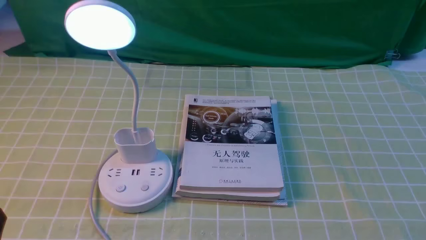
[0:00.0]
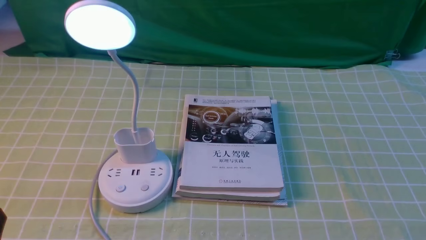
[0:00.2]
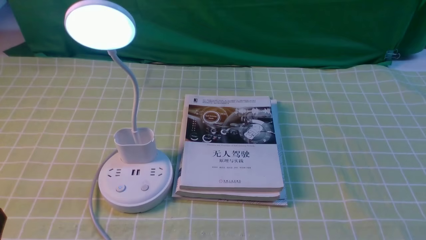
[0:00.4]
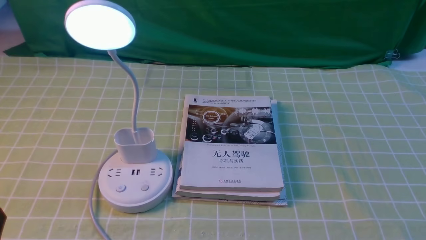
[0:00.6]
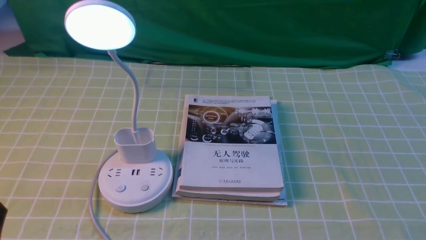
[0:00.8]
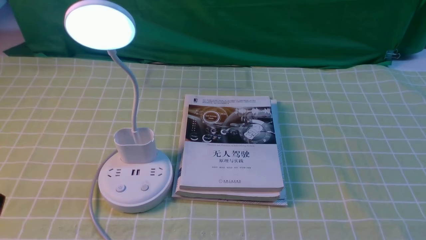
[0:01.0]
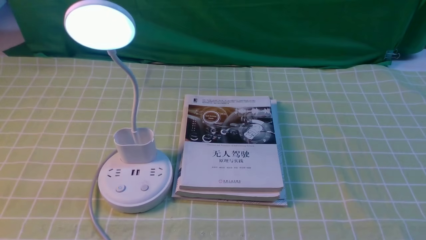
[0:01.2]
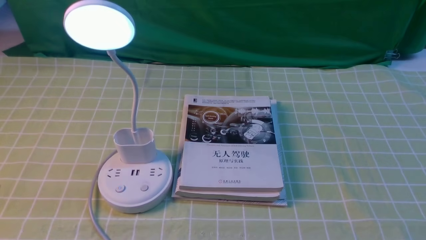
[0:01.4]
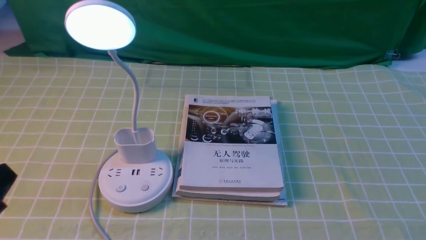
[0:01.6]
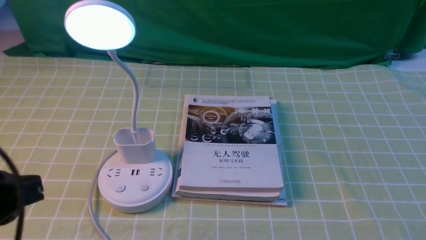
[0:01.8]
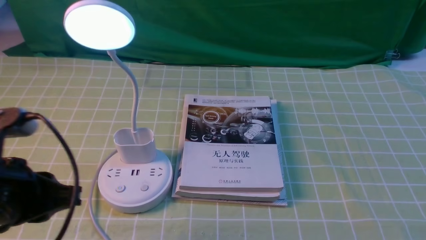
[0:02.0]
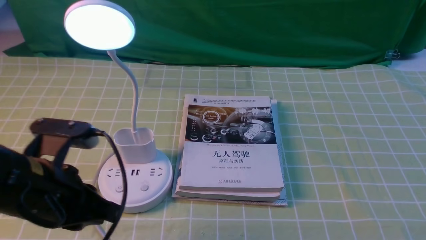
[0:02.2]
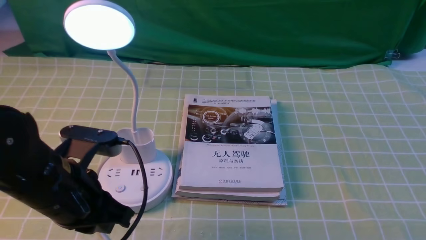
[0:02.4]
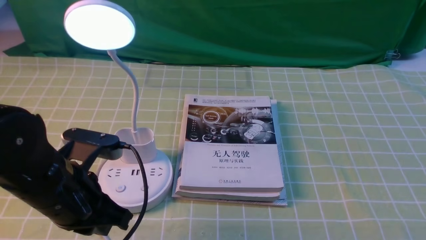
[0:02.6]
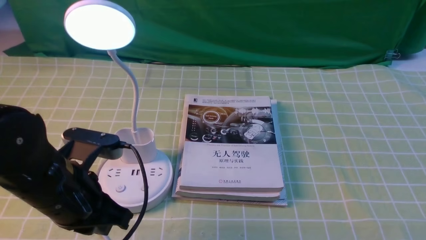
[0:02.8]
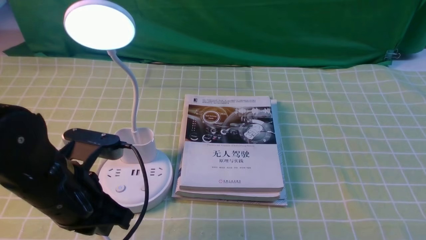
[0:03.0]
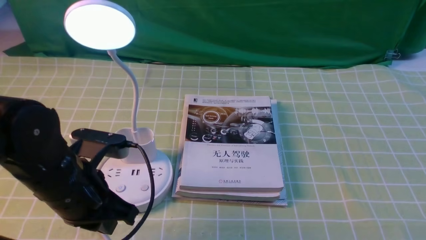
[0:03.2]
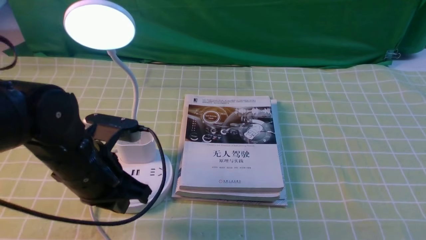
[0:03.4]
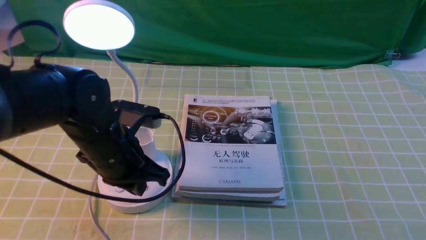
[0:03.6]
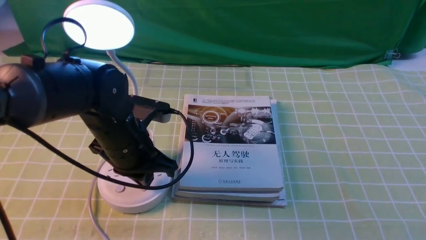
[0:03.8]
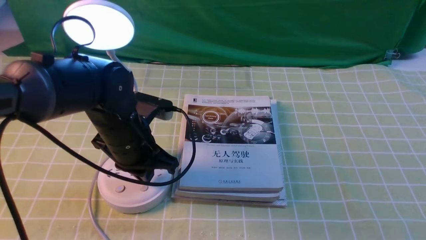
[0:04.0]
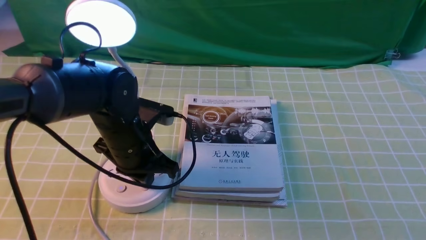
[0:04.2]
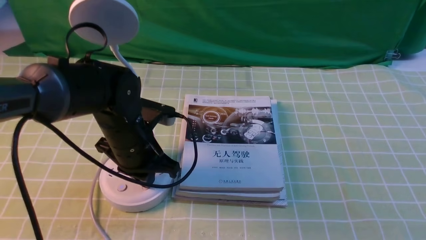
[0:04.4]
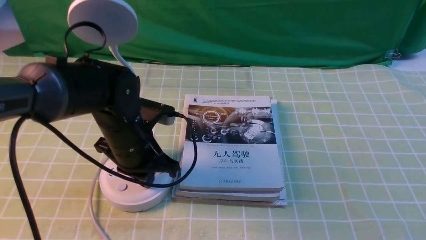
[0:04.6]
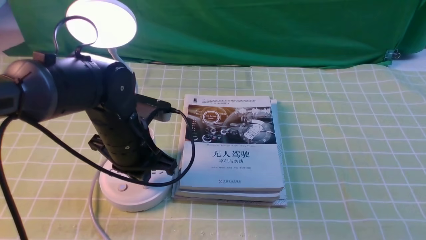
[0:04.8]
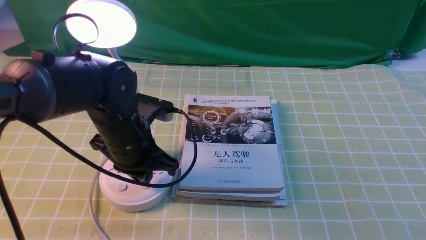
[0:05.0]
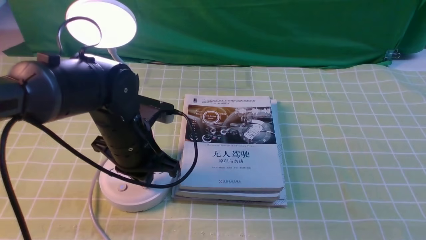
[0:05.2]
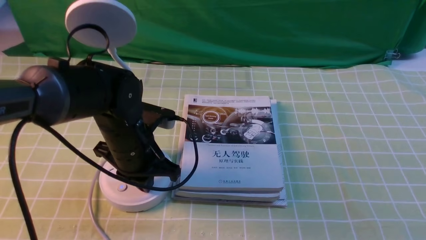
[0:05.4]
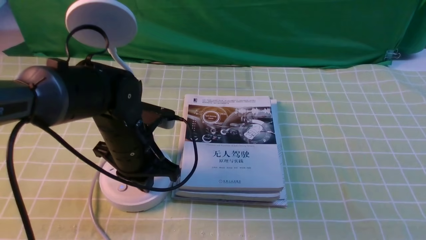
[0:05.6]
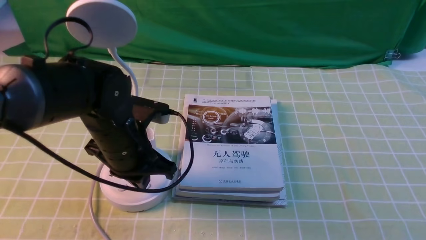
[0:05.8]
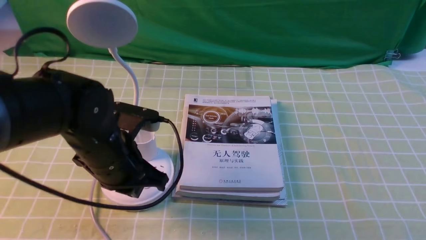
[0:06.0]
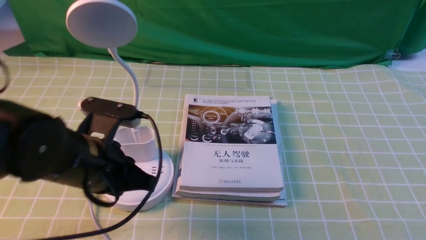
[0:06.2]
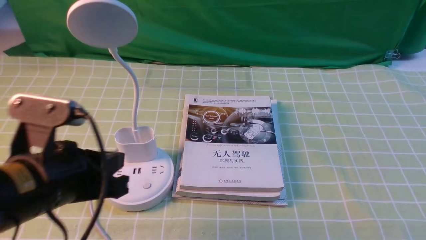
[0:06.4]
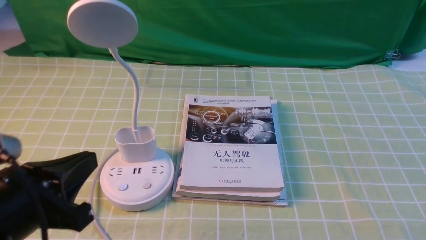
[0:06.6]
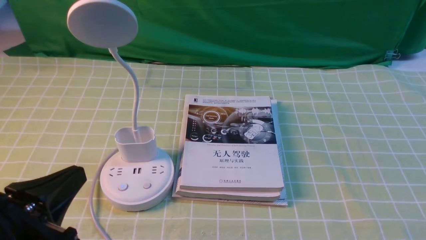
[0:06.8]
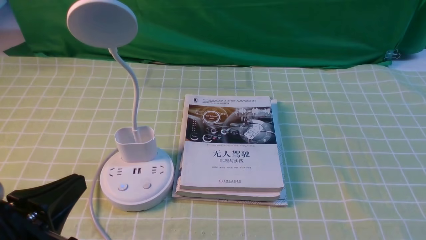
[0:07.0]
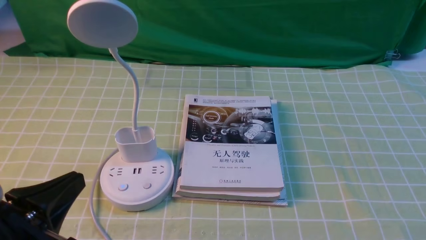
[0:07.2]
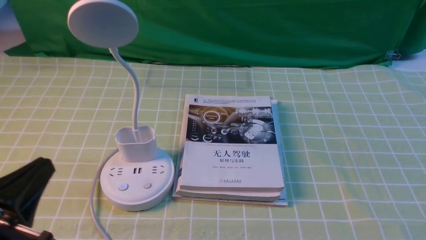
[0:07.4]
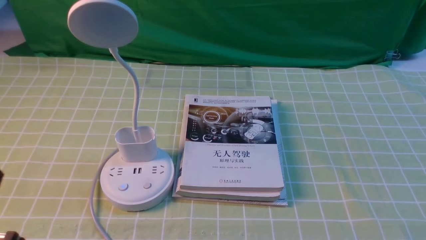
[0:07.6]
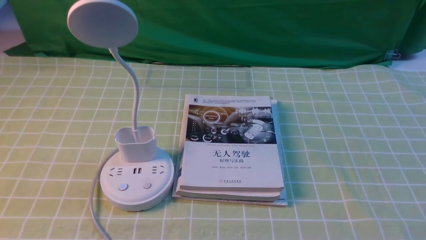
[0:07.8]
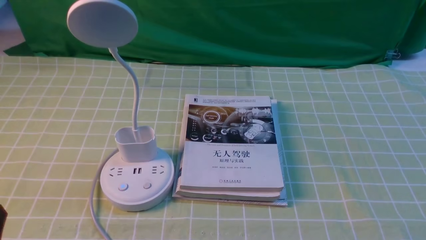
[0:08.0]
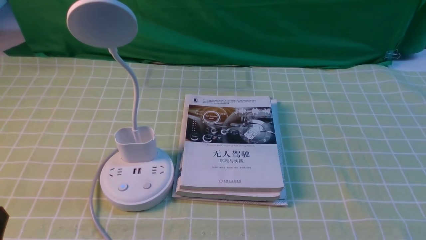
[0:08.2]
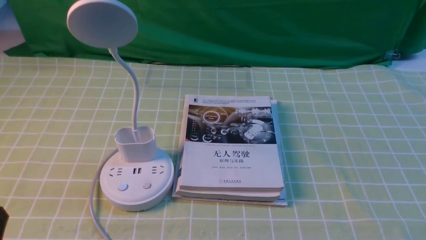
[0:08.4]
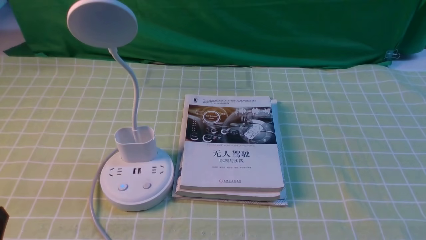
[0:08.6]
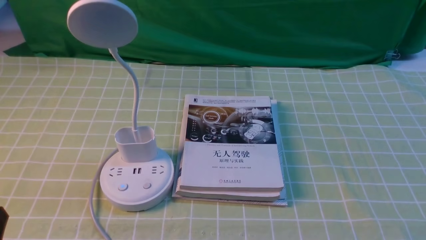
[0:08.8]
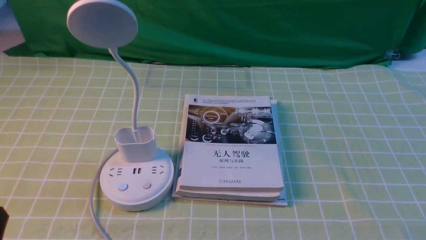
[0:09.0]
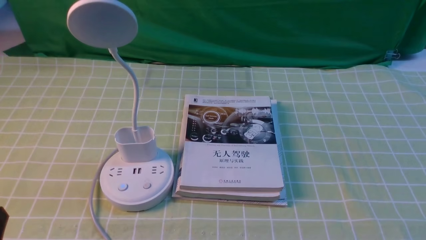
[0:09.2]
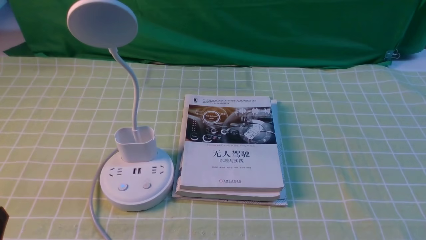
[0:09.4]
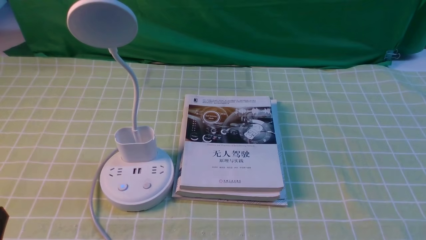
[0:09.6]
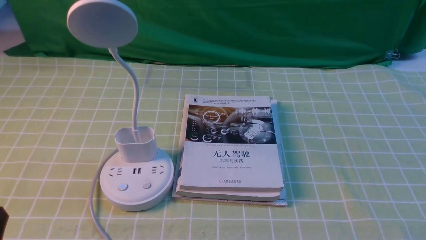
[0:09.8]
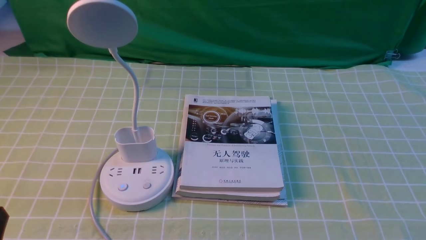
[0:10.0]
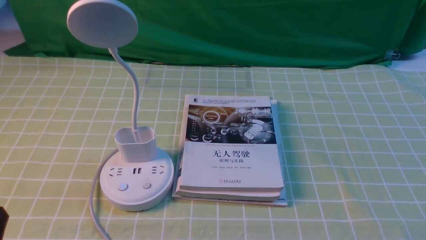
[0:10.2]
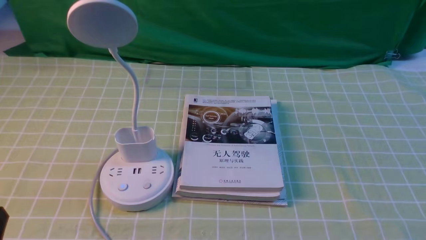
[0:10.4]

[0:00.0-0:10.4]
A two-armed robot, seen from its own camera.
Task of the whole recording: turn off the desk lamp on the green coffee tablecloth by hand.
Step, 0.0 to 6.0 s: use the left arm to press the button switch on the lamp holder.
1.4 to 3.0 s: The left gripper travels forward and to the right by about 15 cm.
3.0 to 4.4 s: The left gripper shifts about 10 cm forward.
4.4 to 6.0 s: The grippers make only small movements.
6.0 to 7.4 s: The left gripper travels backward and to the left by approximately 20 cm.
7.4 to 9.0 s: The left gripper ends up about 5 cm from where it was.

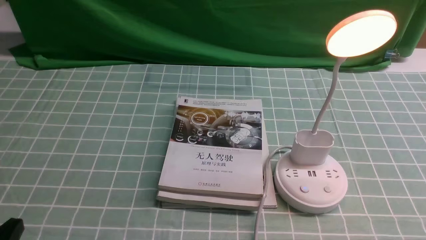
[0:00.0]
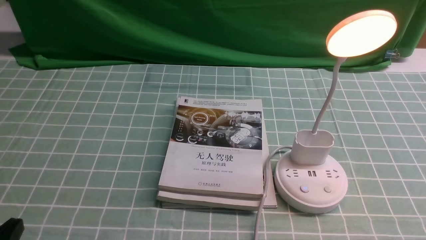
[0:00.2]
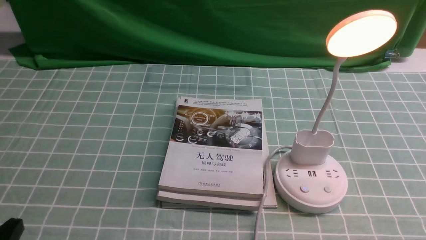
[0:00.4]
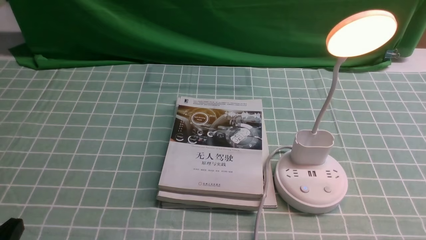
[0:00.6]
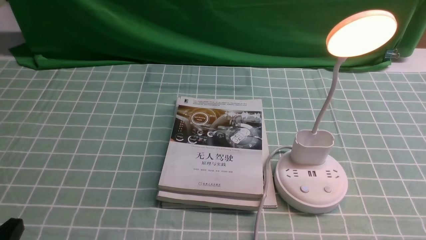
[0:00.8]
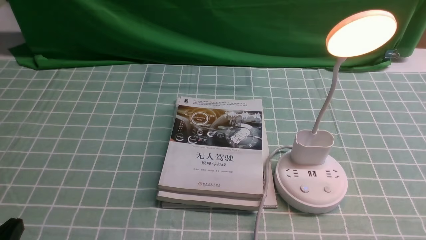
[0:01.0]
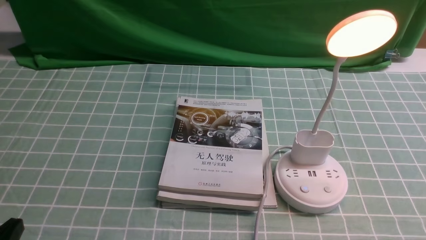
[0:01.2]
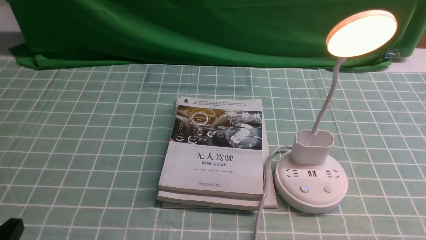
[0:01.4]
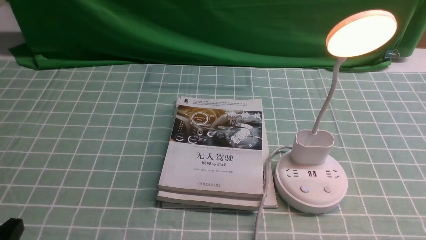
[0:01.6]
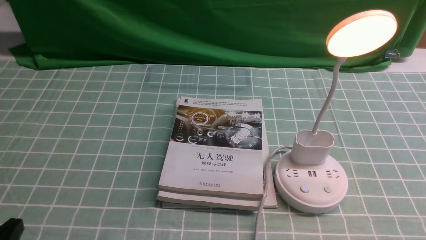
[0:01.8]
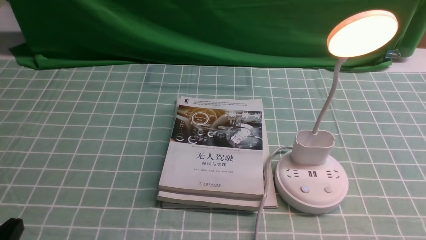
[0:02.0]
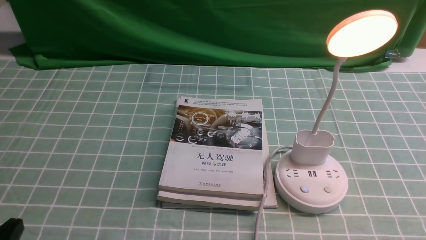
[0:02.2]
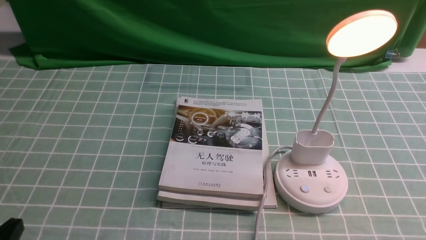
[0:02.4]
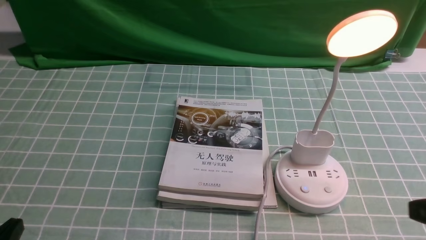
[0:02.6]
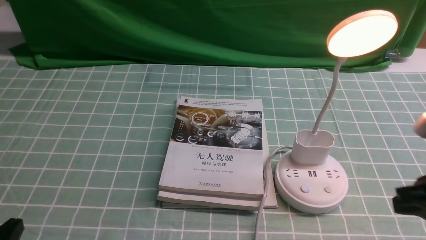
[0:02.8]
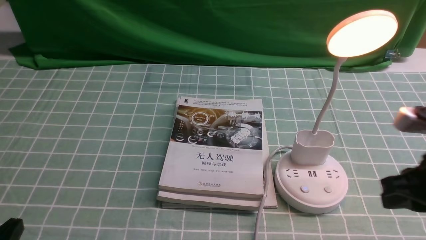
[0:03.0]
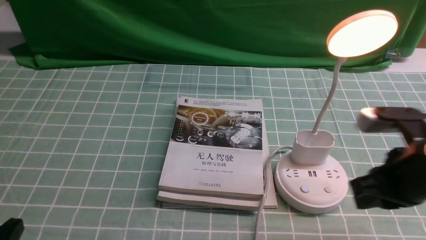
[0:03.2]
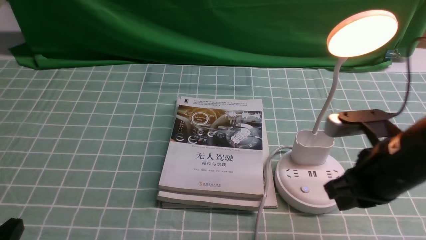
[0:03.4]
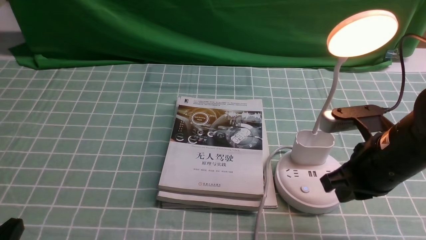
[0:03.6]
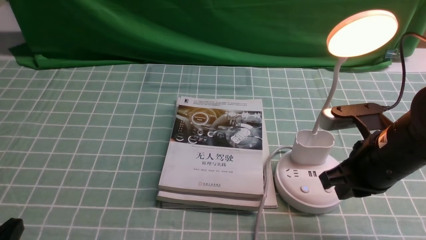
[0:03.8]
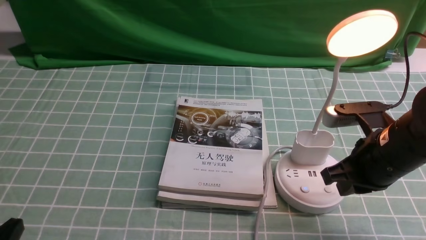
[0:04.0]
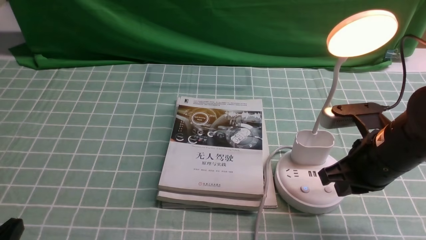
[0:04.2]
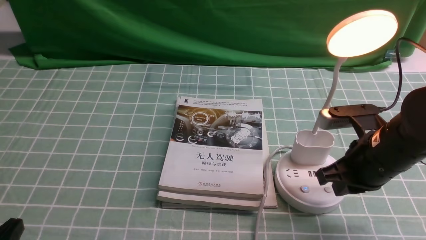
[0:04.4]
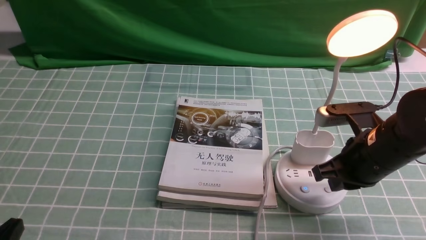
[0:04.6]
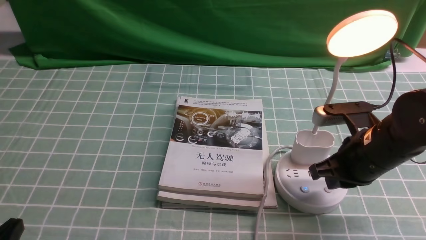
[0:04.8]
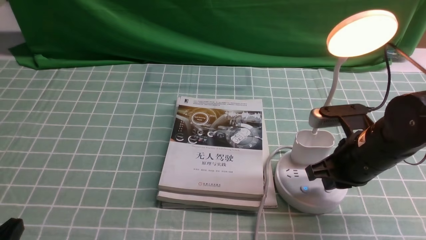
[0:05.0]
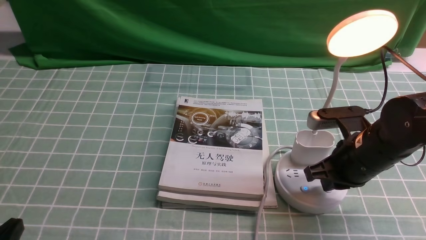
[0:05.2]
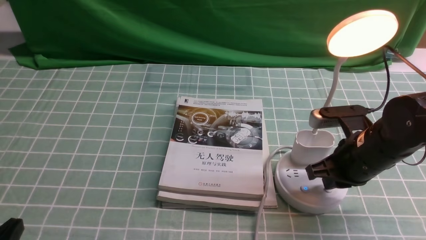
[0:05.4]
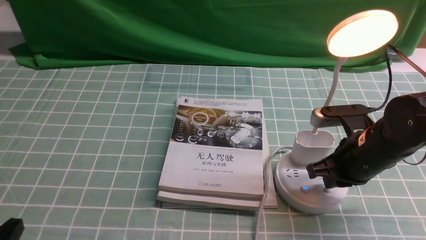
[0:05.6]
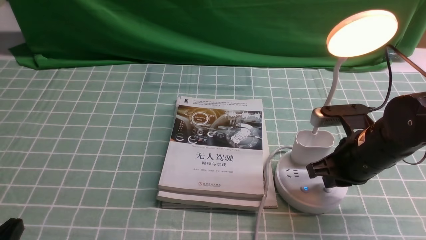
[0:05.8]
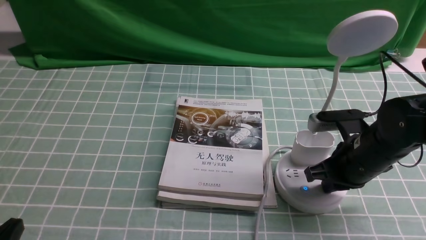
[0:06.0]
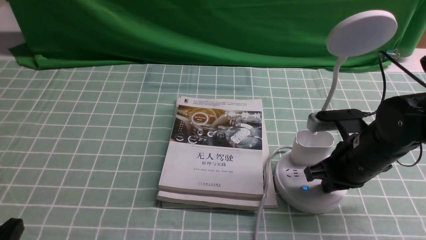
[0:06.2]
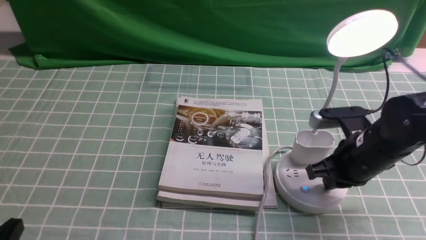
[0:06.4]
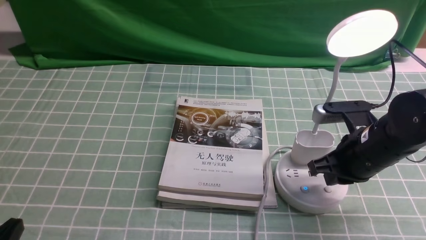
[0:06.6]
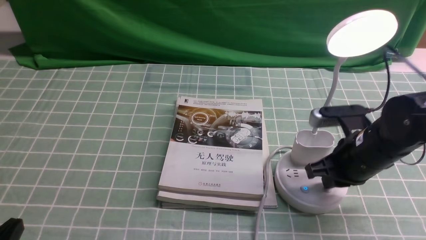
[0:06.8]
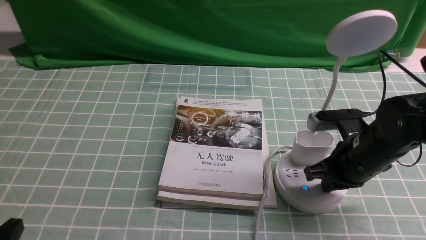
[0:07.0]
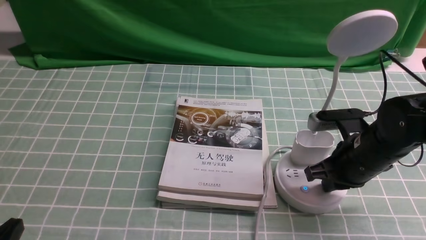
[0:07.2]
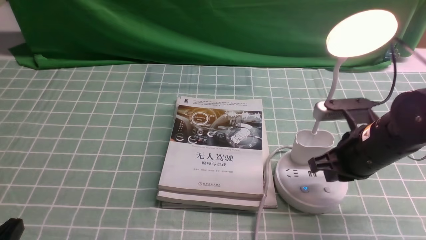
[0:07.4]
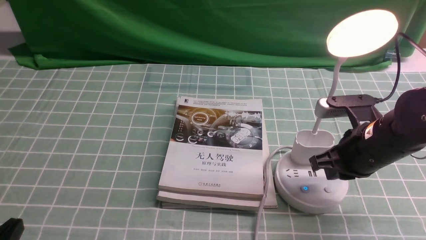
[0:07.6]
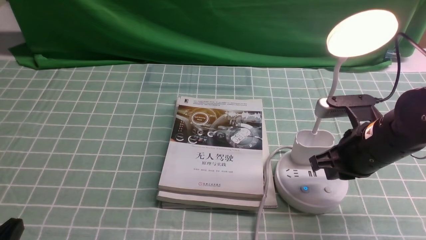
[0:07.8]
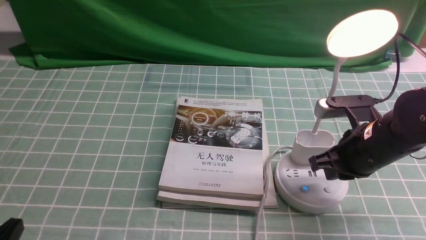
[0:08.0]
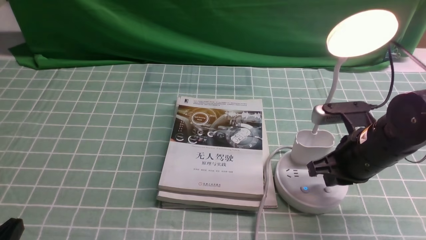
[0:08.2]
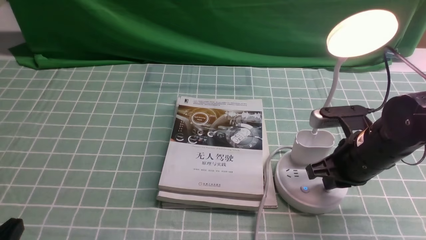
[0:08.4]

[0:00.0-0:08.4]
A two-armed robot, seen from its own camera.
Task of the whole recording: turn off the desk lamp on the blue coffee tablecloth by hand.
1.4 to 2.8 s: The right gripper heads forward and upward, covering about 15 cm, and closes its fingers.
2.8 to 4.2 s: The right gripper shifts some 10 cm forward and to the left.
4.2 to 5.6 s: The grippers move only a little.
5.6 to 7.0 s: Both grippers stay put.
7.0 to 8.4 s: The grippers make only small movements.
